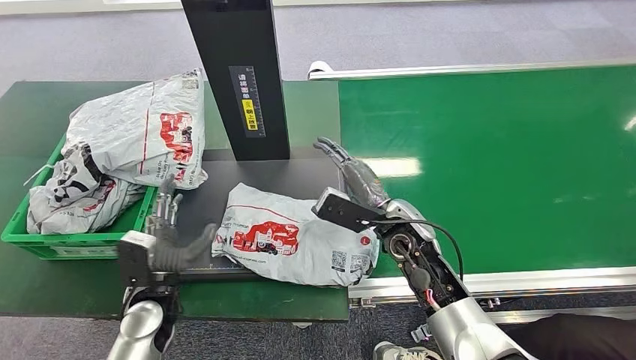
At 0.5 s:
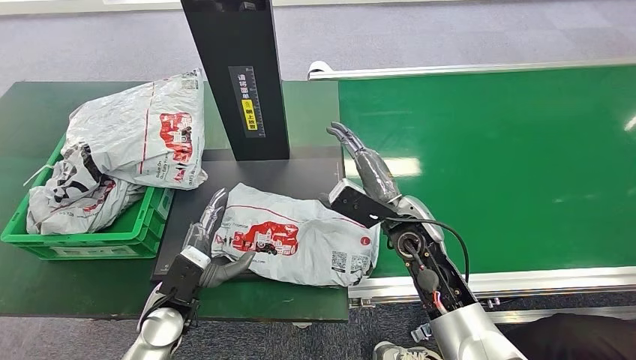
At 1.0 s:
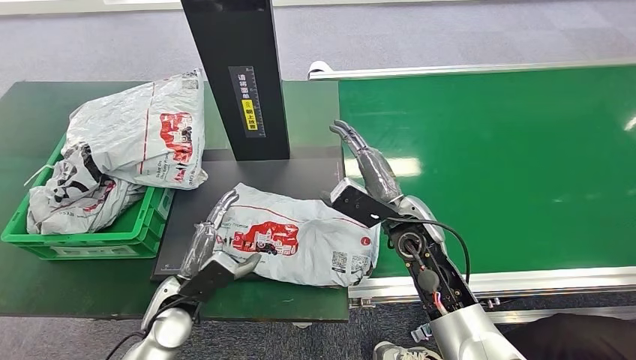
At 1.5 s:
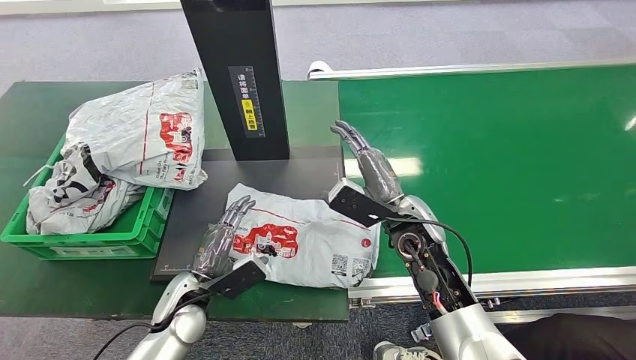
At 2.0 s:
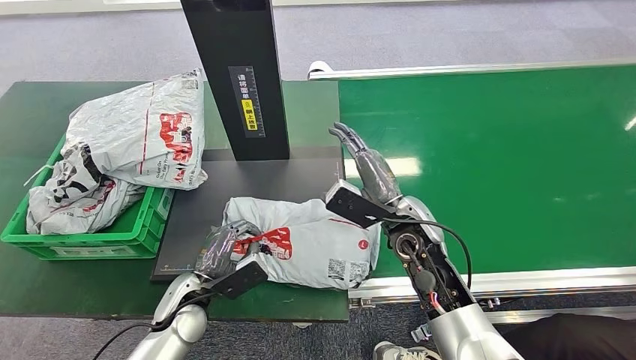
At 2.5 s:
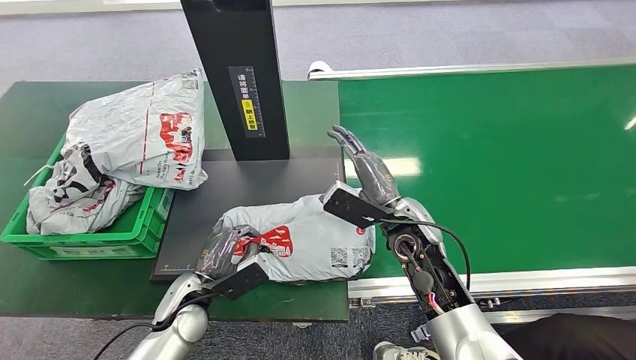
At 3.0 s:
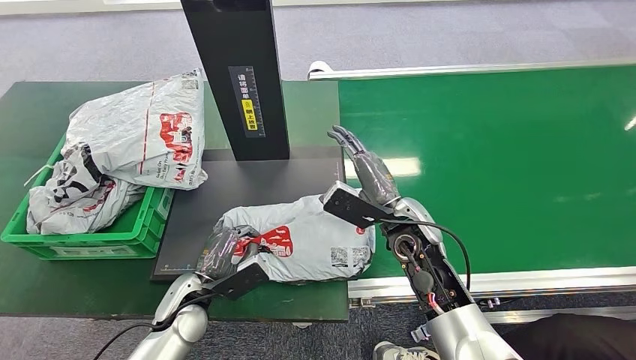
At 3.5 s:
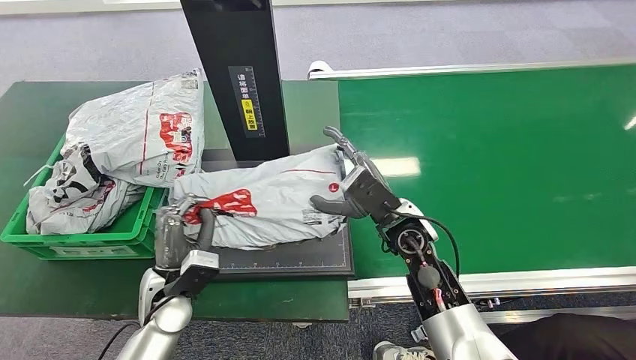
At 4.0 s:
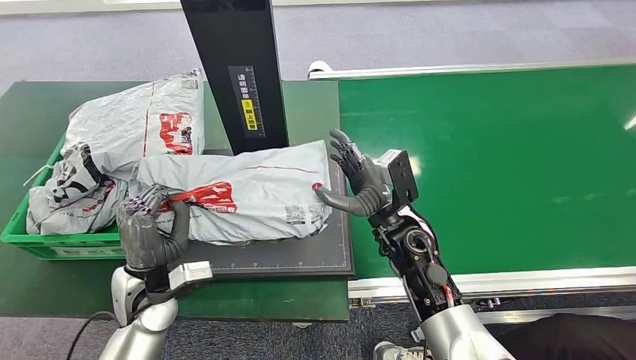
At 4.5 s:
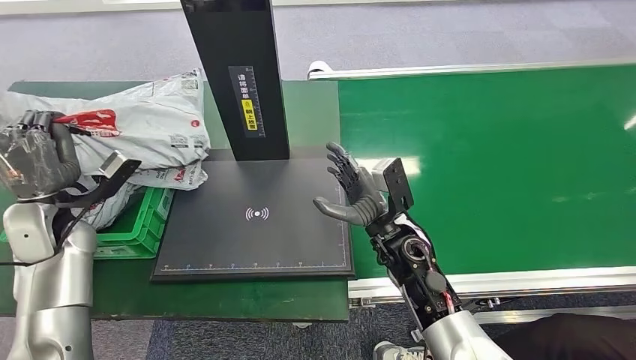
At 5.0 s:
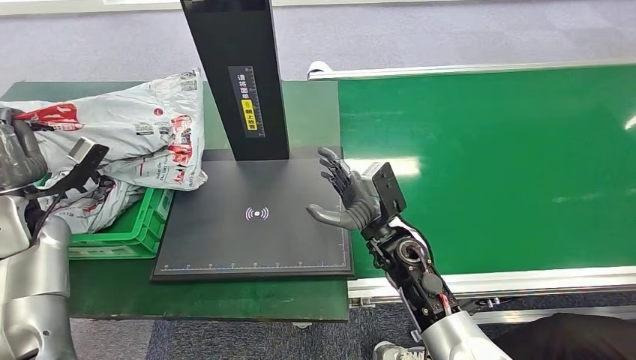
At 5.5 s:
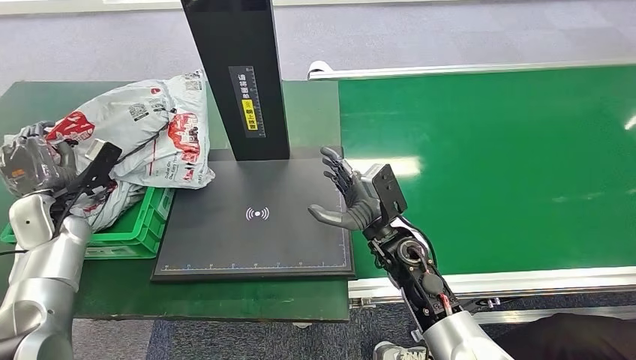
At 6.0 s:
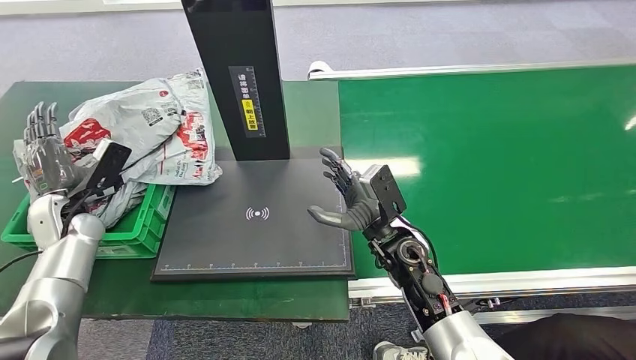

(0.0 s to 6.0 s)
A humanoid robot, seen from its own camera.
Step, 0.5 s - 3.5 s: Pick up the package from the inbound machine.
Step, 4.0 s - 6.0 s: Place the package into the parcel locker.

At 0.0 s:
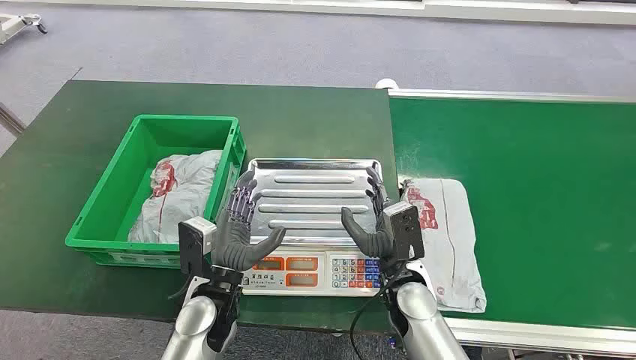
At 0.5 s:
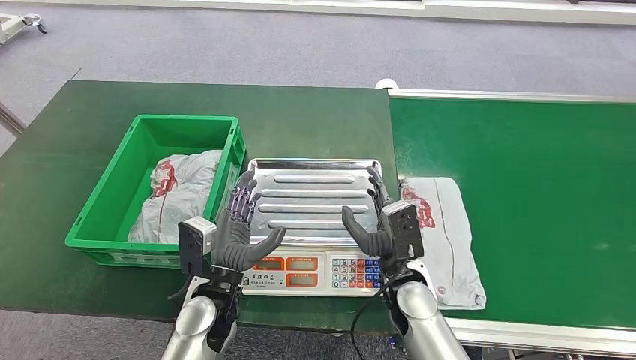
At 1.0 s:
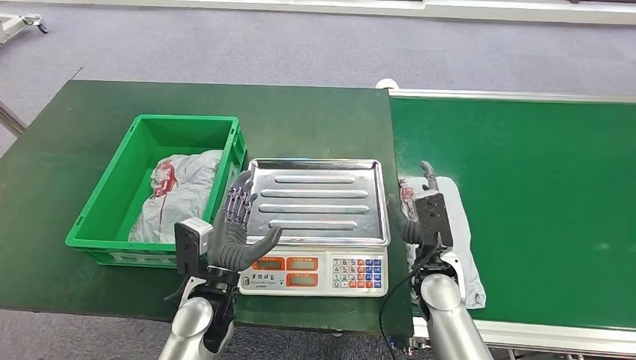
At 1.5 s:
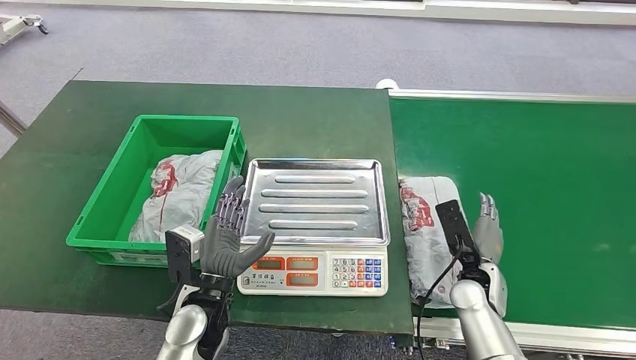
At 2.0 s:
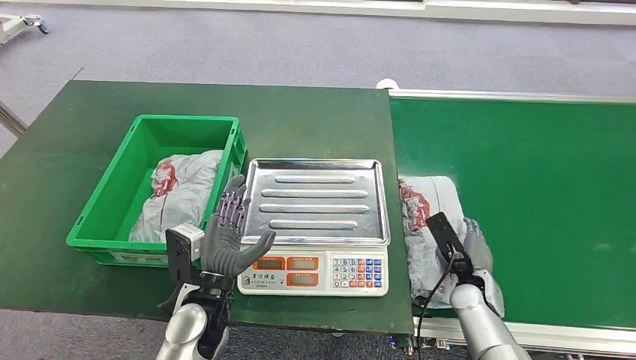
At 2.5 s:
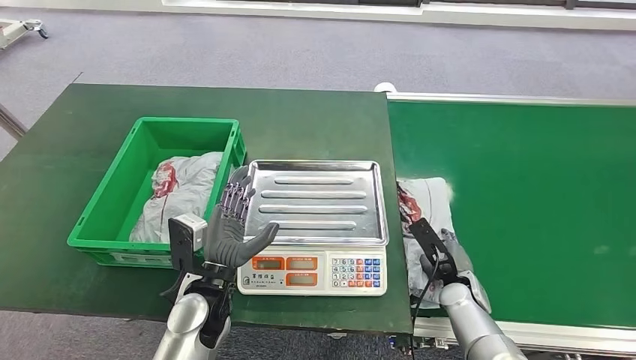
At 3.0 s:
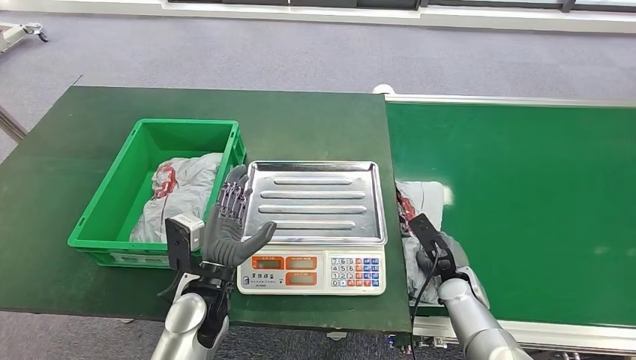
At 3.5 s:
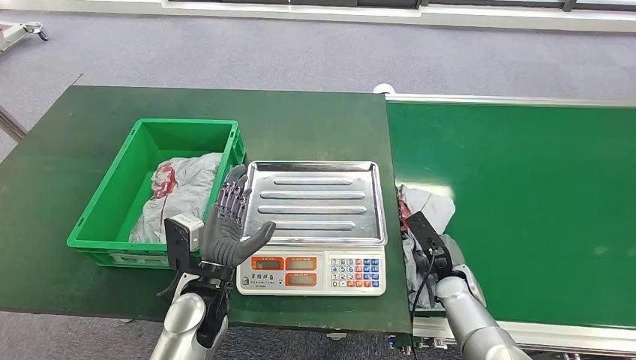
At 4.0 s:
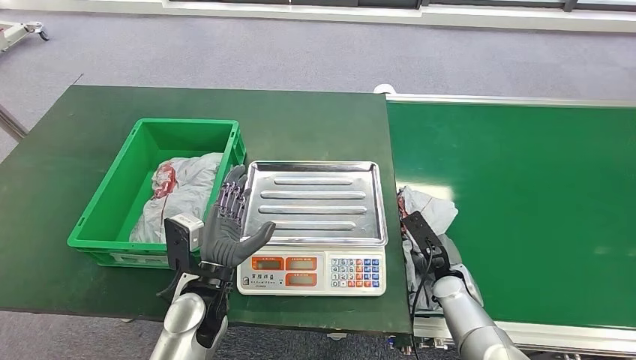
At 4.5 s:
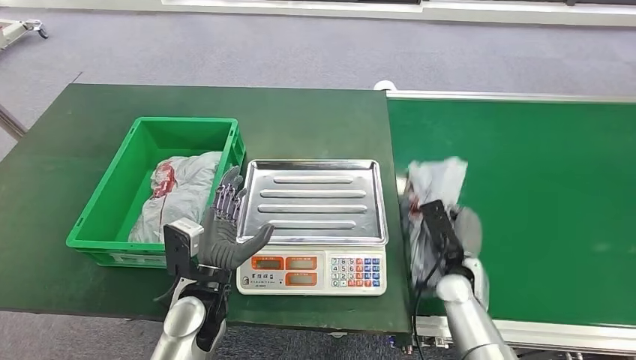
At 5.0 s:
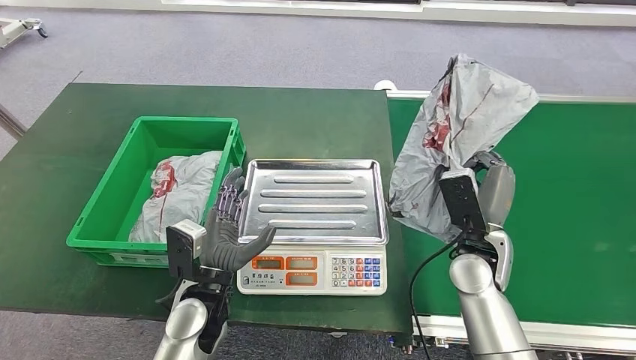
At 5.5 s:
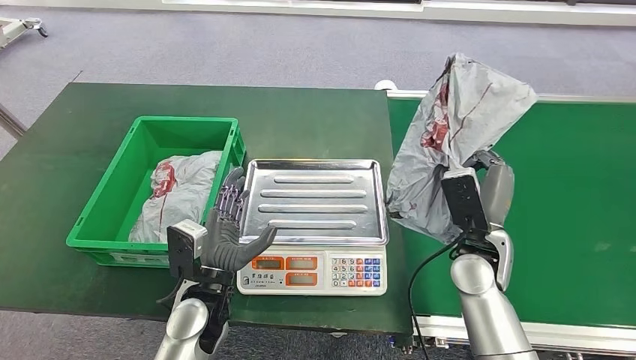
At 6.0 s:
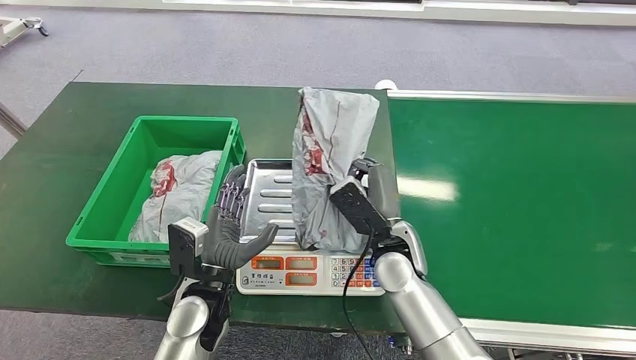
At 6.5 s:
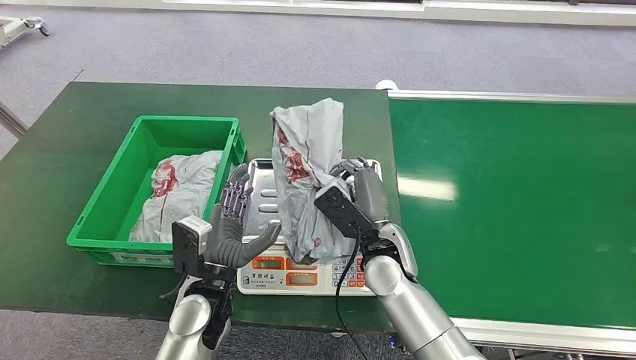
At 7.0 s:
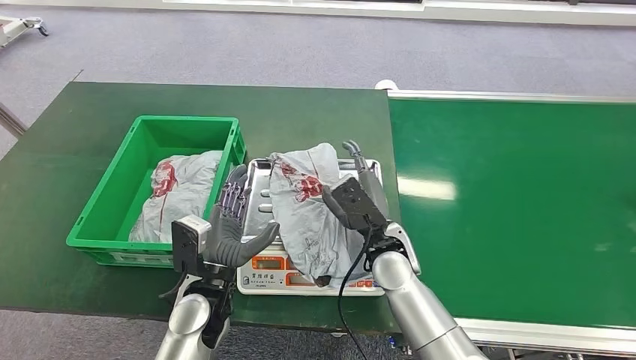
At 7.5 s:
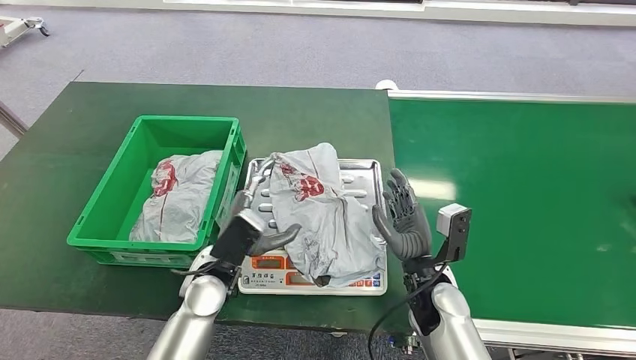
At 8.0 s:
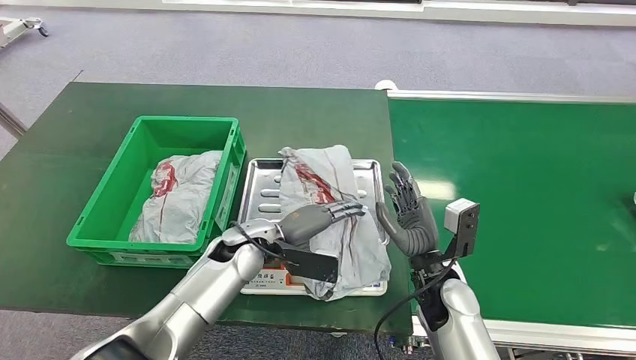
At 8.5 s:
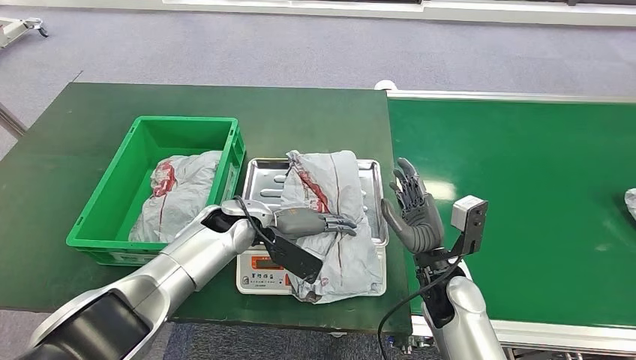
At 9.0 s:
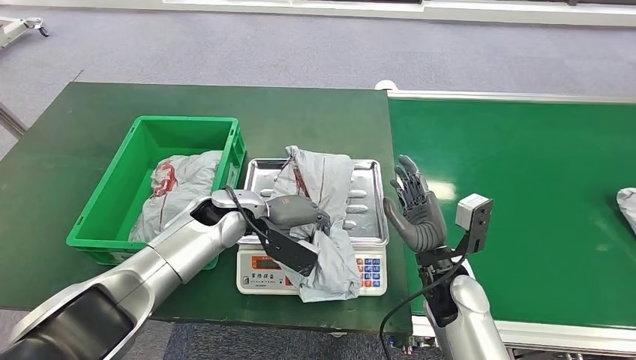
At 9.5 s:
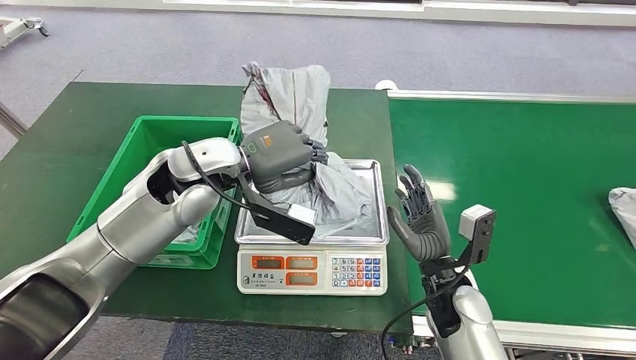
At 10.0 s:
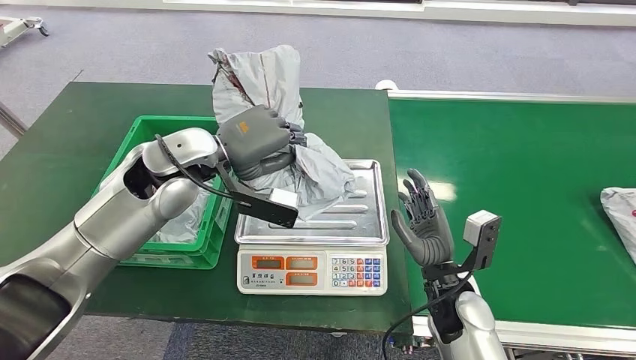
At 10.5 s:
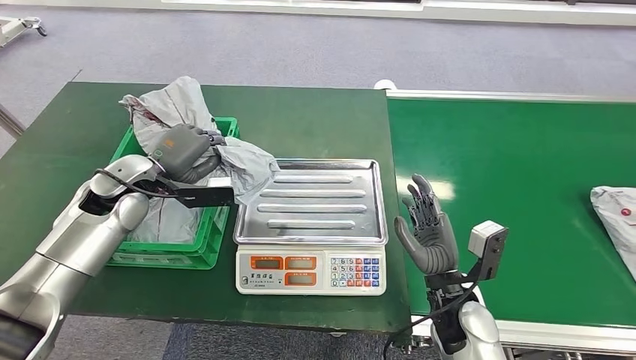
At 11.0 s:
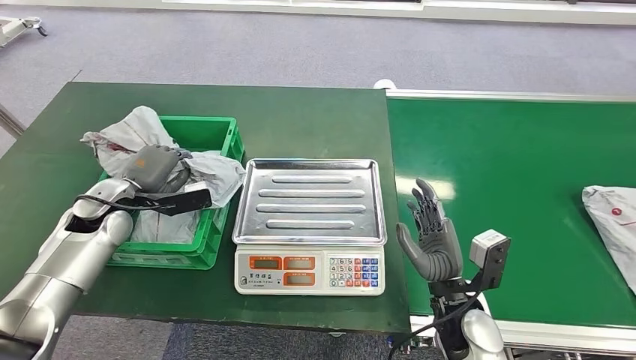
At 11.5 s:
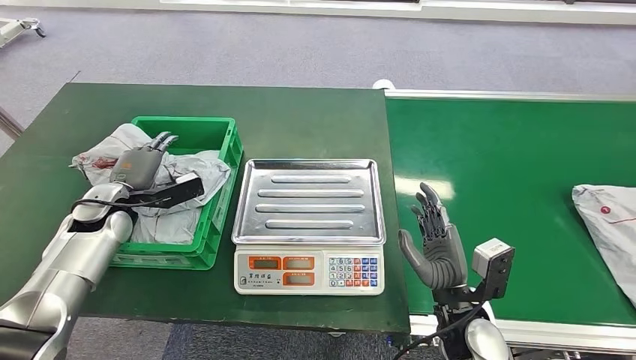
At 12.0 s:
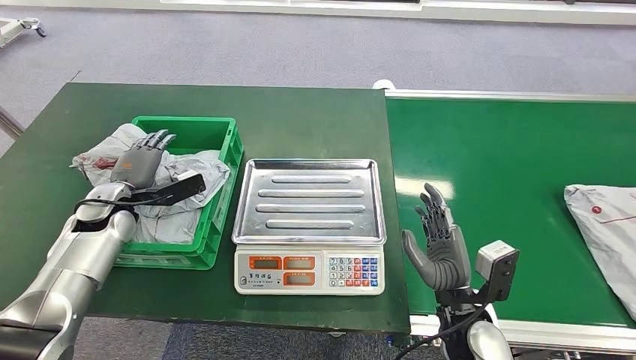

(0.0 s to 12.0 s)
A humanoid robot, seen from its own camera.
Step, 0.0 s - 5.5 s: Pick up the package from the conveyor belt.
Step, 6.0 s - 7.0 s: Place the package onto the inbound machine.
Step, 7.5 s - 9.5 s: Pick up the package from the inbound machine.
Step, 10.0 s - 12.0 s: Place the package into the parcel locker.
6.0 s - 8.0 s: The left hand heads forward, covering some 10 cm. Meanwhile the right hand is displaced to the right by some 5 cm.
